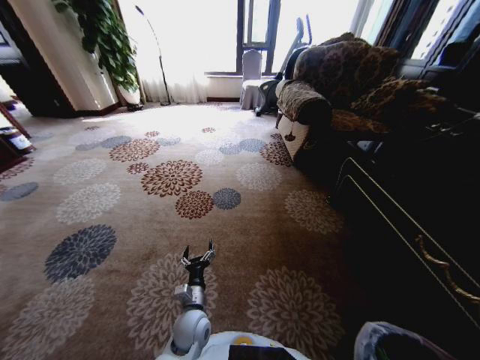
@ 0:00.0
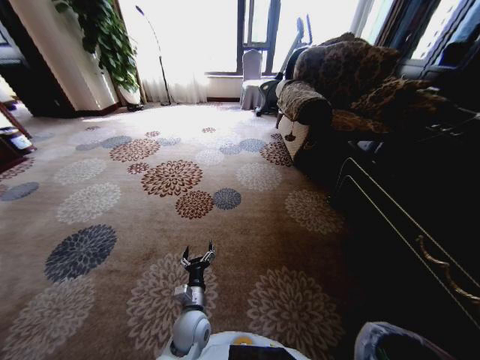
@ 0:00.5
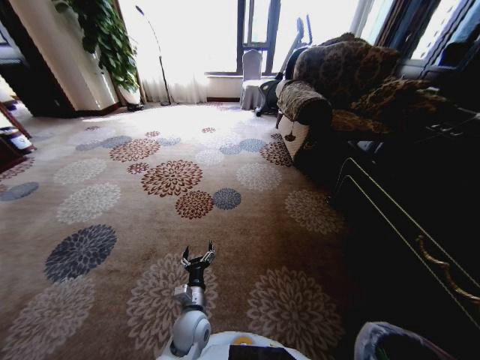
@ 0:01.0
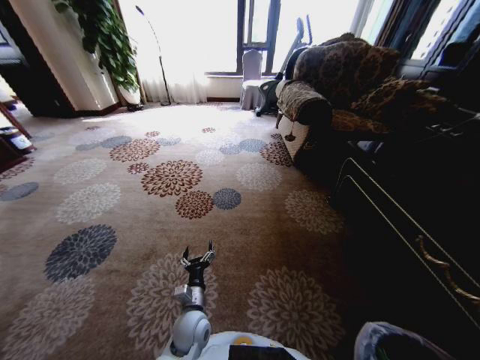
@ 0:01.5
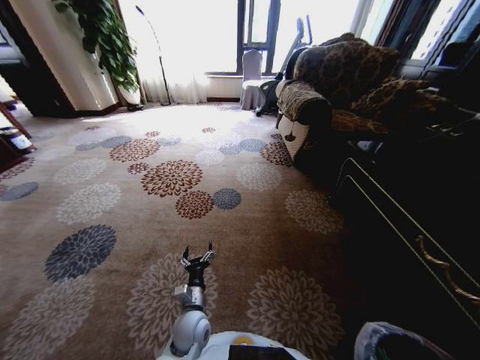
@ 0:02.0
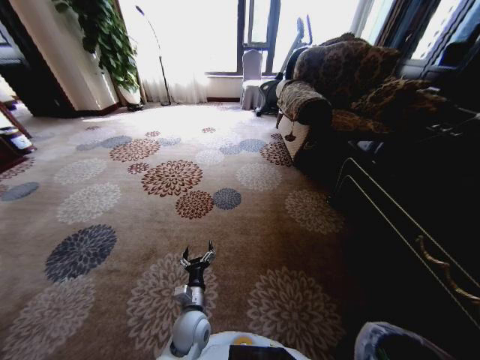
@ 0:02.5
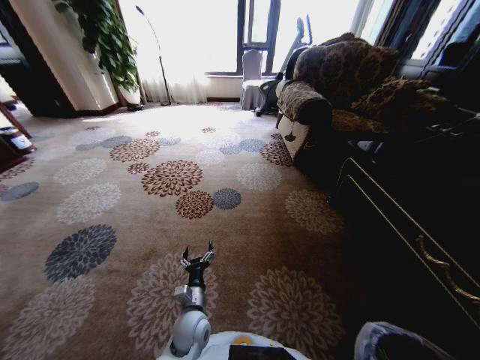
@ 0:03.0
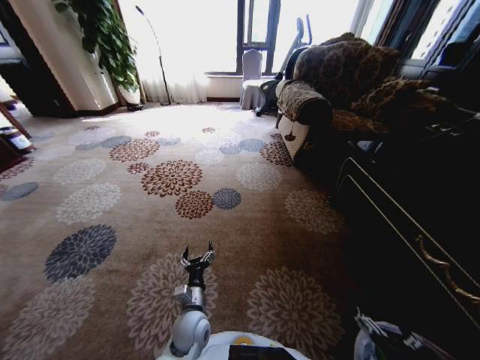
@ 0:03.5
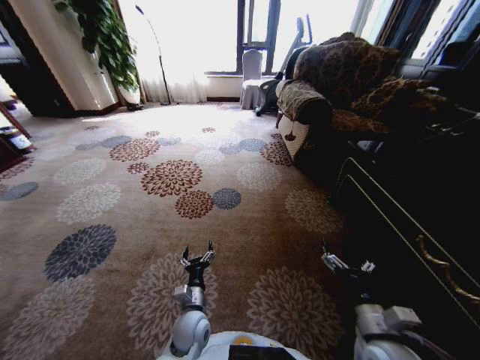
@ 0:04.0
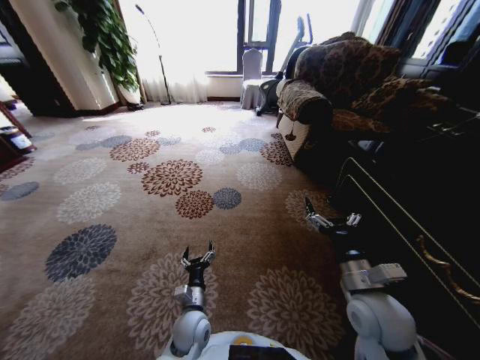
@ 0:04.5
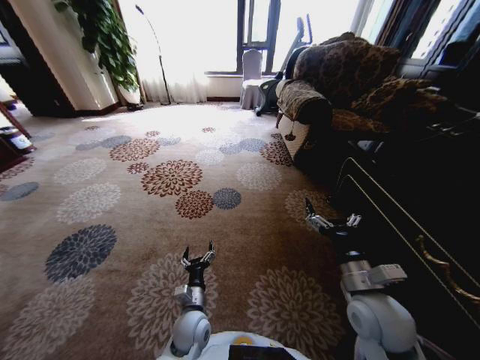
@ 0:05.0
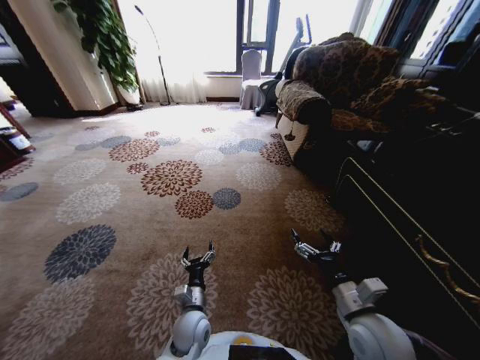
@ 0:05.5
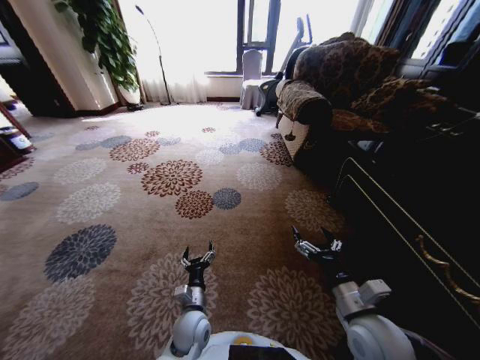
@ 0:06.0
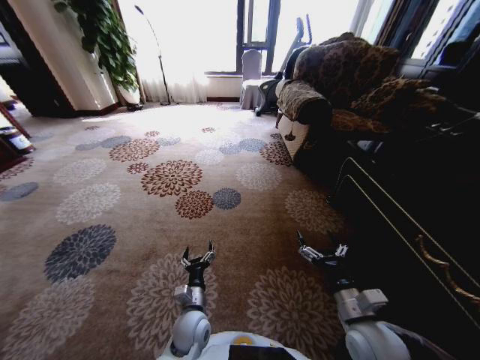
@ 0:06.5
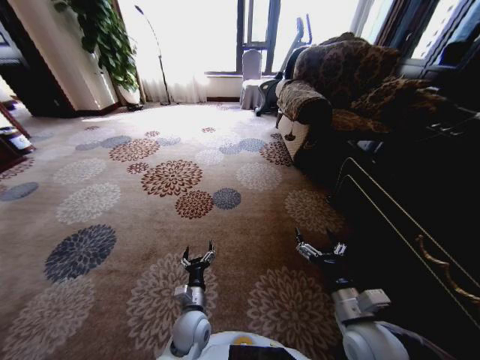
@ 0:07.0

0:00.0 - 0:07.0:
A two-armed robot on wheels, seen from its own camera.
Task of the whole recording: Pick up the trash from the ground and place it into the trash bin.
0:00.0 - 0:02.0: Both grippers stay about where they are.
0:03.5 - 0:05.0: The right gripper travels forward and upward by about 20 cm.
0:05.0 - 0:07.0: The right gripper changes place by about 5 cm.
